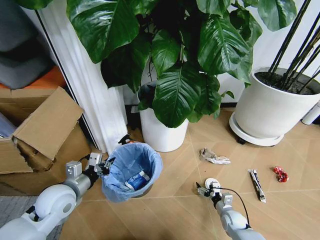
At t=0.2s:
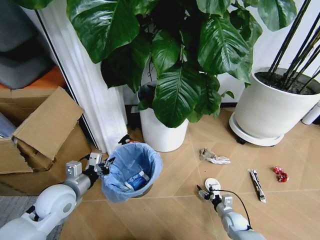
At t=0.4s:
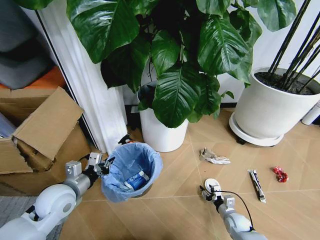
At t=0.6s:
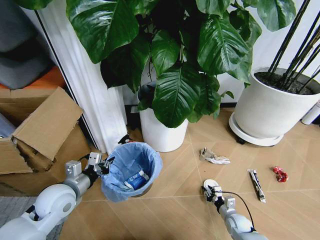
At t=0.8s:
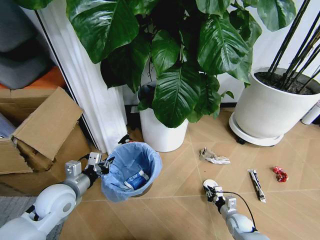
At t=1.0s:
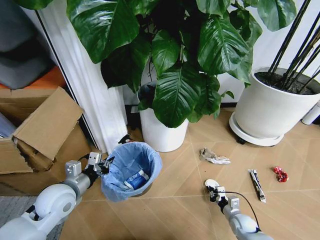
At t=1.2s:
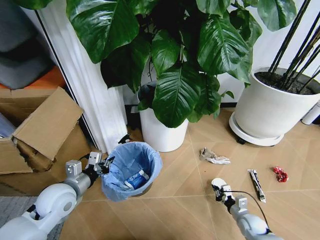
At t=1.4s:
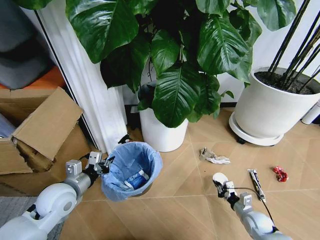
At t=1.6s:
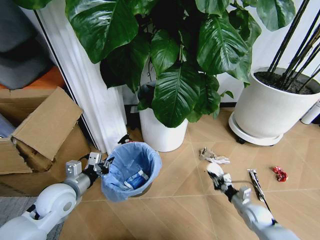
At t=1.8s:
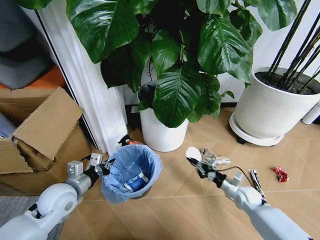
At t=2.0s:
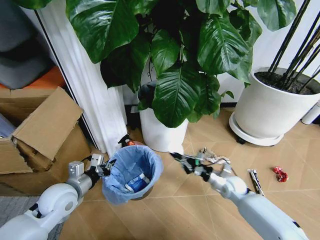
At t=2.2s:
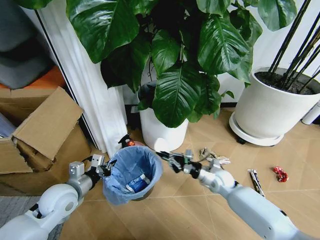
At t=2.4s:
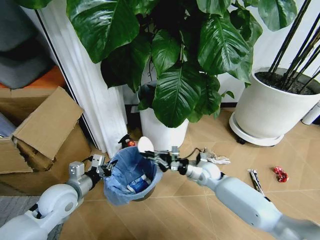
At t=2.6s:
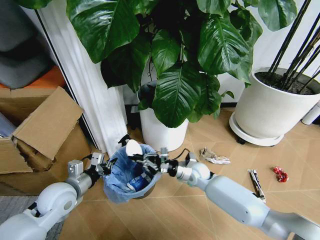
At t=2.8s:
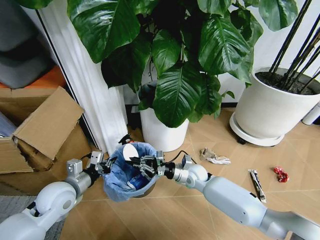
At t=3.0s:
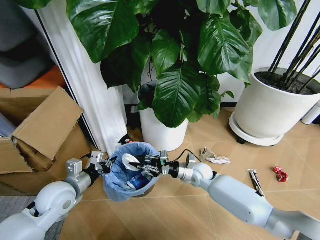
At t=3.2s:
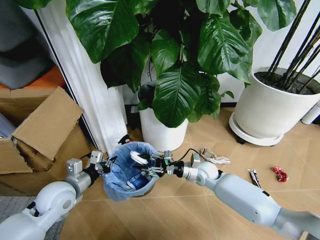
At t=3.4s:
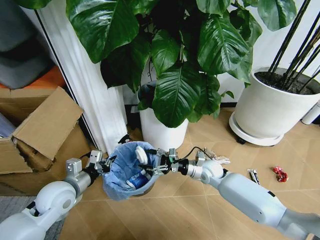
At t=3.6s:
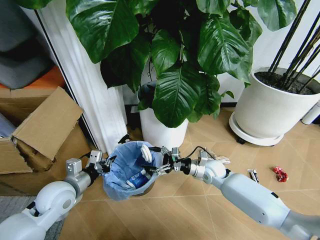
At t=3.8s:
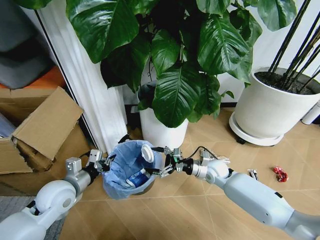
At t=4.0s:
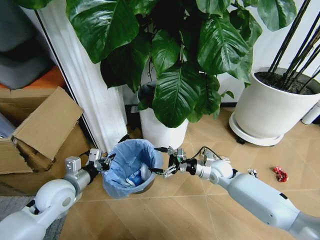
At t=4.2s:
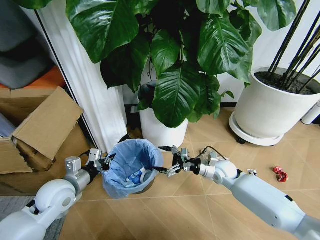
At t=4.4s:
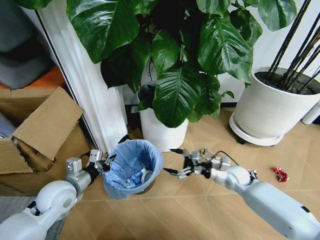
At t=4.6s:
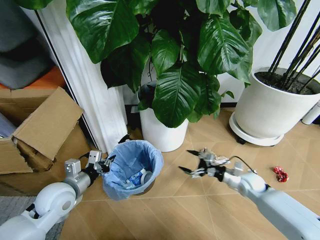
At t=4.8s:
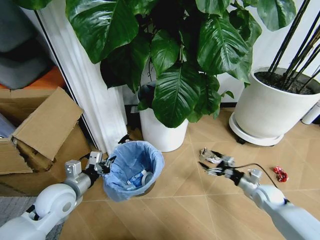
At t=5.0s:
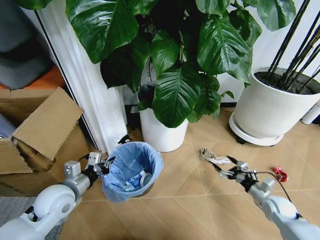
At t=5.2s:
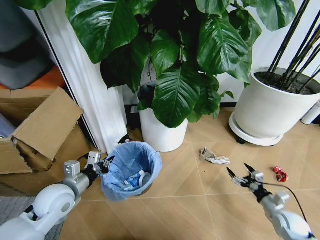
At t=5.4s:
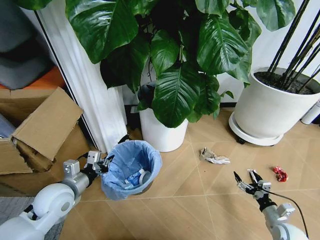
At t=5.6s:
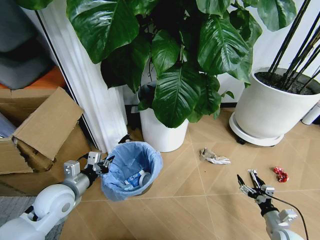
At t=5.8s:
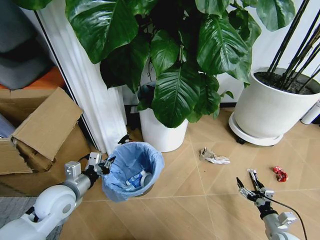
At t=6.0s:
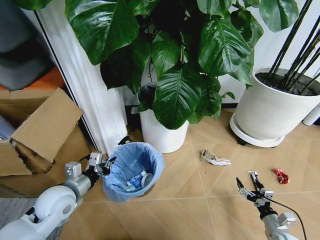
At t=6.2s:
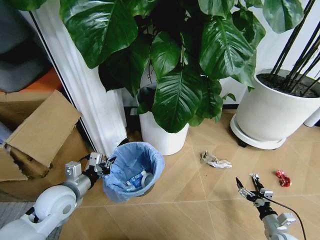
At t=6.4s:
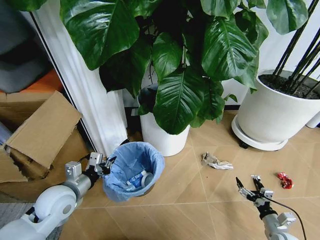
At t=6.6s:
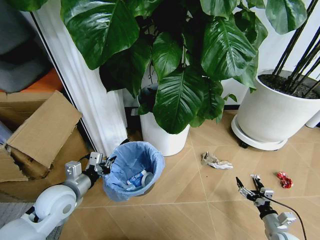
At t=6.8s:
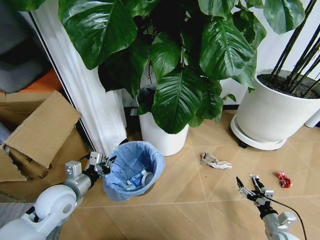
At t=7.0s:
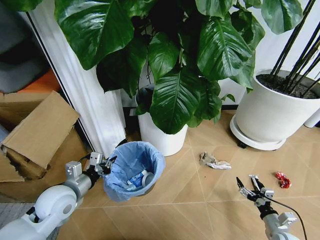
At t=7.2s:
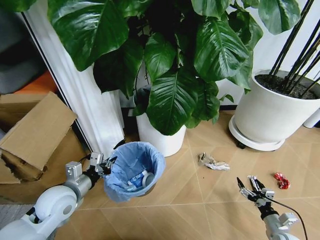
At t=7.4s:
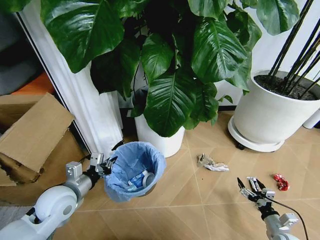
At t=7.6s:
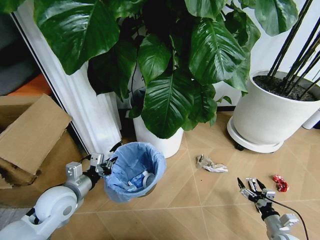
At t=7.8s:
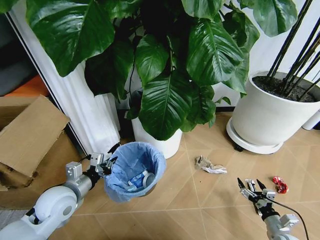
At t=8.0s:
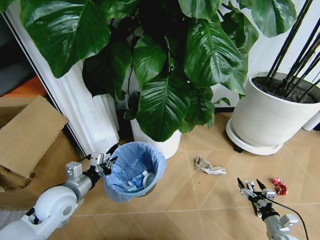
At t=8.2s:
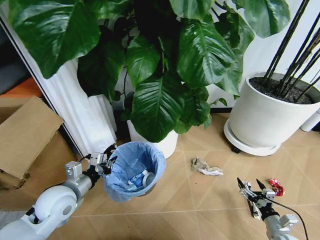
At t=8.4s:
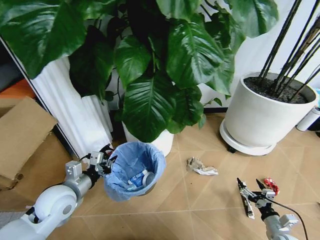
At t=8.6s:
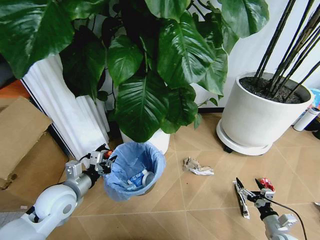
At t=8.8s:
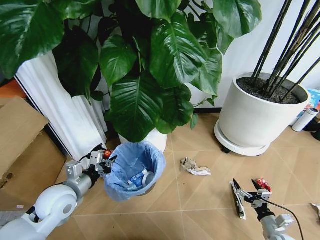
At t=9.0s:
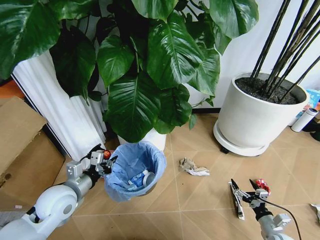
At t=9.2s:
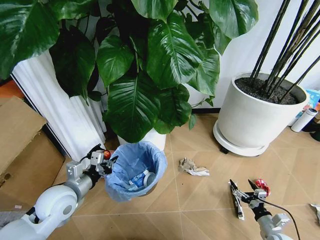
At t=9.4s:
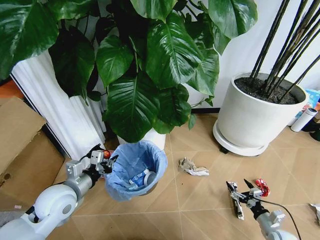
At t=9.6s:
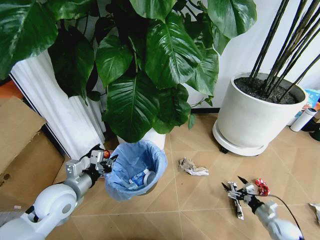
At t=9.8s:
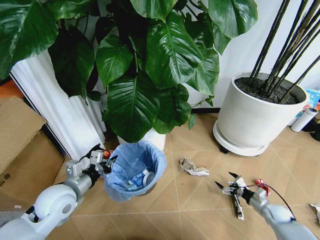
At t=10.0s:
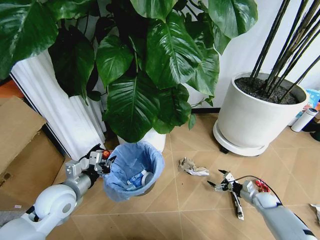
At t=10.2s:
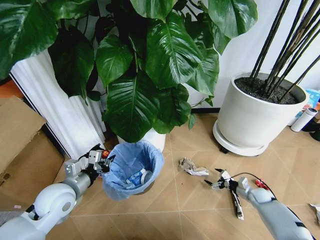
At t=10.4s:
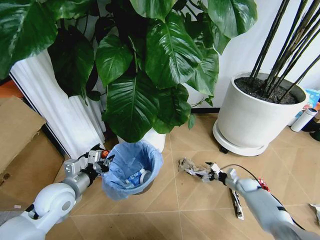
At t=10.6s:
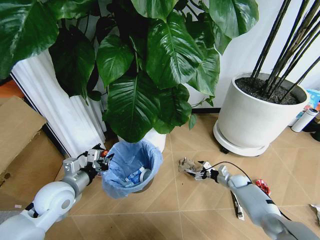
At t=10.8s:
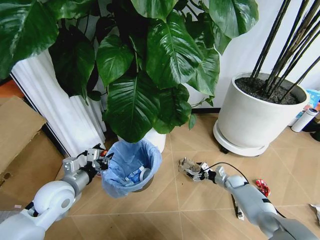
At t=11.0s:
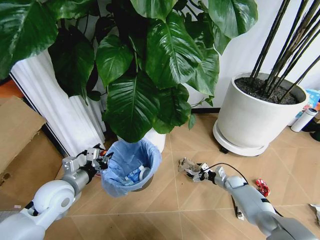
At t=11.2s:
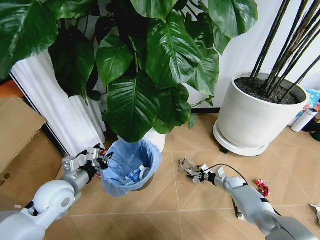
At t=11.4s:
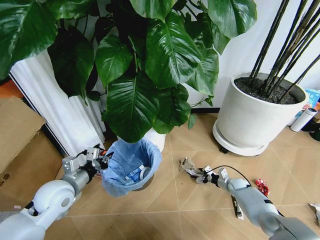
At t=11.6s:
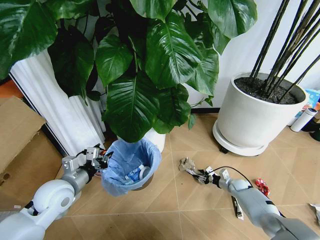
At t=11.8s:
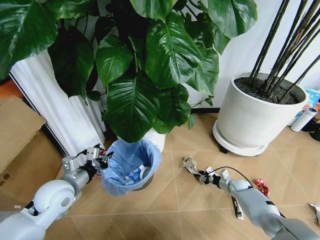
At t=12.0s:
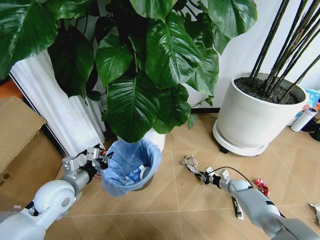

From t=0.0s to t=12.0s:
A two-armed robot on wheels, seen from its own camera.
Task of the whole recording: Pick up the trash bin and place the garbage on the floor into it.
From t=0.0s to t=1.6s: The right gripper travels upward and to the right by approximately 10 cm, and closes up.
From t=1.6s to t=3.0s: The right gripper travels to the left, forward and upward by roughly 25 cm.
From t=3.0s to t=4.4s: The right gripper goes some 15 cm to the right, and opens.
From t=4.4s to t=6.0s: The right gripper is displaced backward, to the right and downward by about 30 cm.
From t=9.0s to t=10.4s: The right gripper shifts approximately 25 cm forward.
From t=10.4s to t=12.0s: The right gripper closes its fingers.

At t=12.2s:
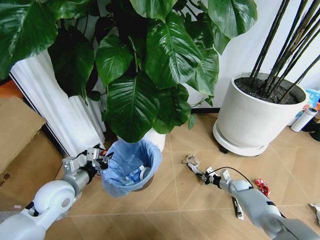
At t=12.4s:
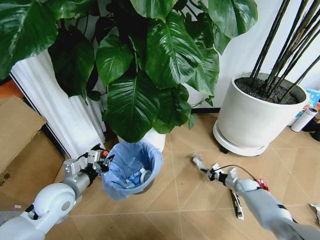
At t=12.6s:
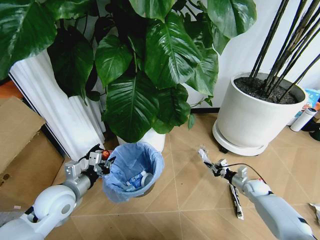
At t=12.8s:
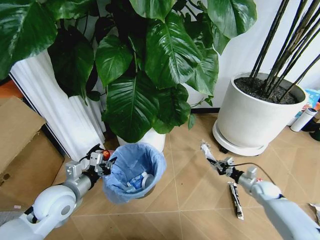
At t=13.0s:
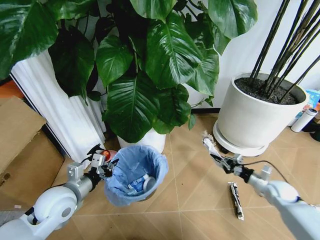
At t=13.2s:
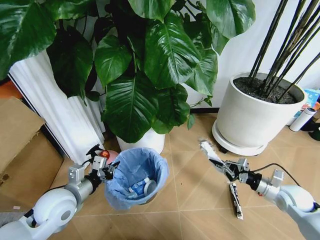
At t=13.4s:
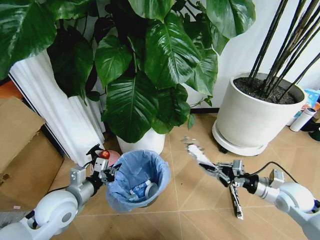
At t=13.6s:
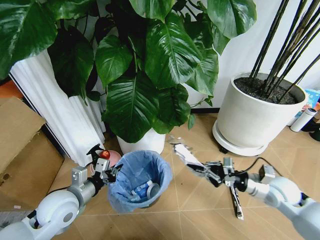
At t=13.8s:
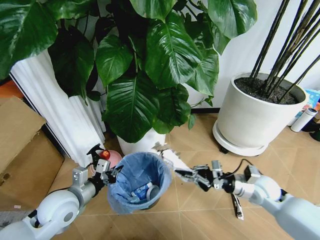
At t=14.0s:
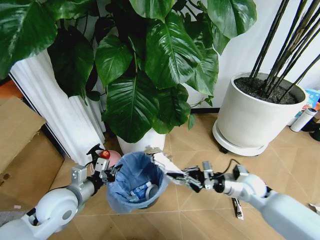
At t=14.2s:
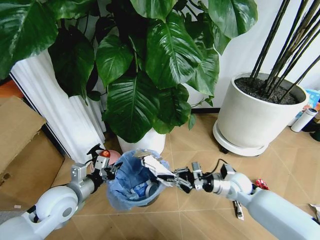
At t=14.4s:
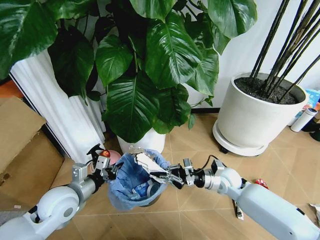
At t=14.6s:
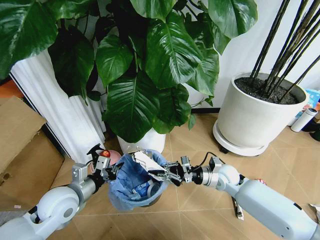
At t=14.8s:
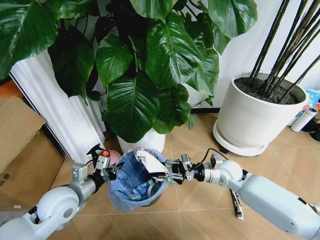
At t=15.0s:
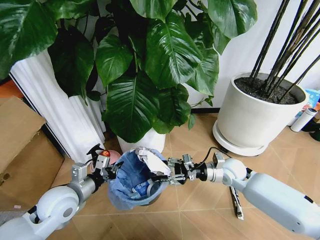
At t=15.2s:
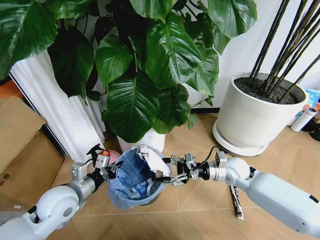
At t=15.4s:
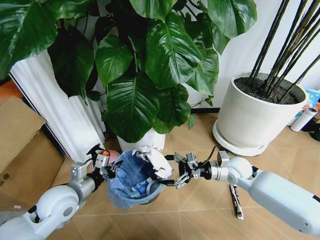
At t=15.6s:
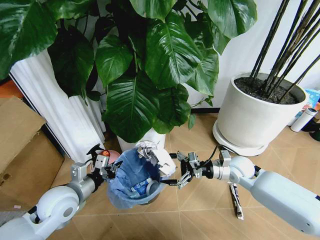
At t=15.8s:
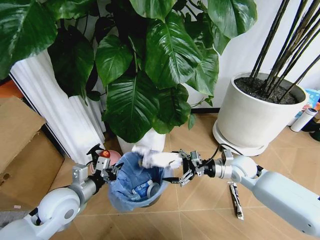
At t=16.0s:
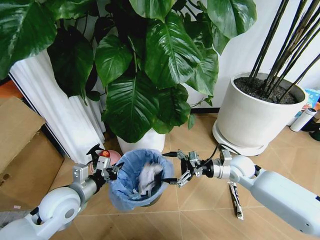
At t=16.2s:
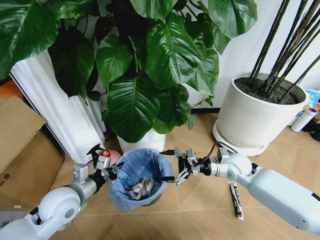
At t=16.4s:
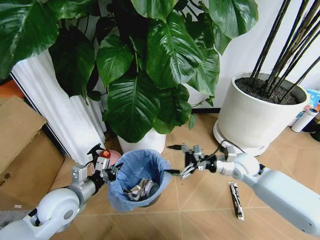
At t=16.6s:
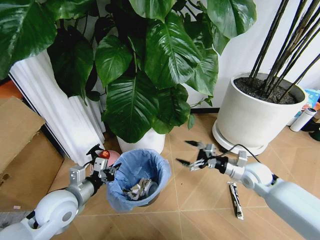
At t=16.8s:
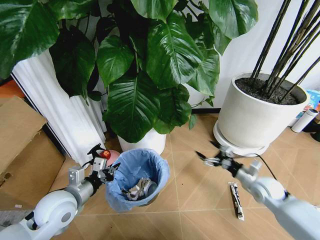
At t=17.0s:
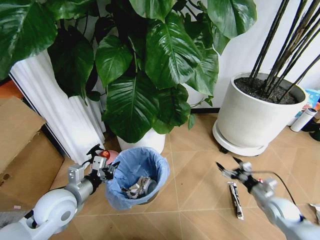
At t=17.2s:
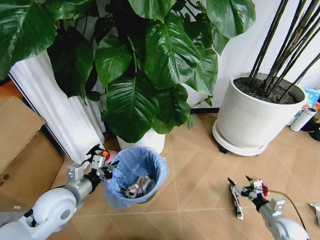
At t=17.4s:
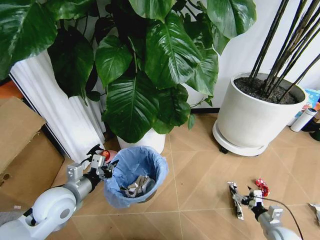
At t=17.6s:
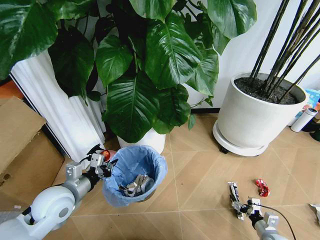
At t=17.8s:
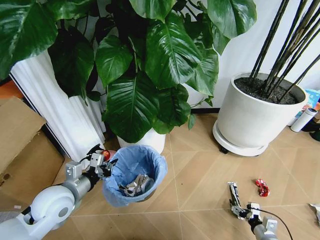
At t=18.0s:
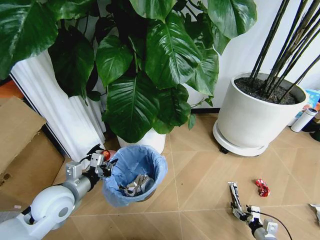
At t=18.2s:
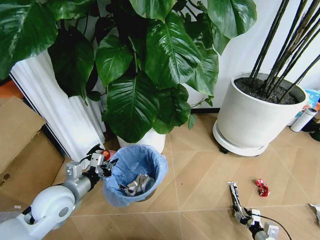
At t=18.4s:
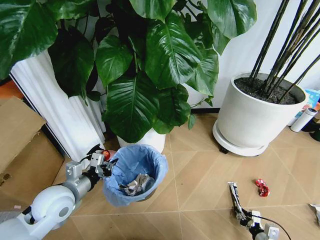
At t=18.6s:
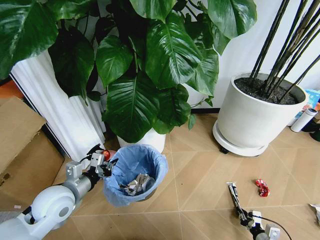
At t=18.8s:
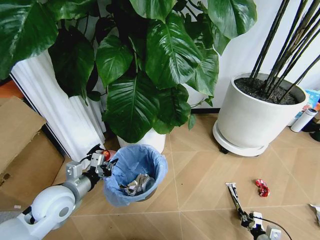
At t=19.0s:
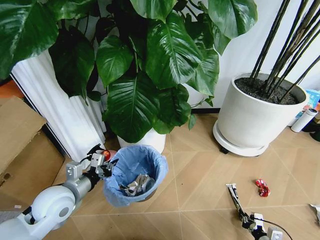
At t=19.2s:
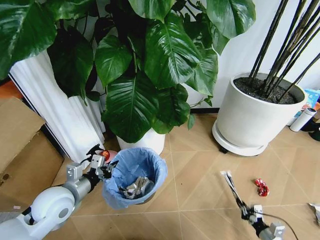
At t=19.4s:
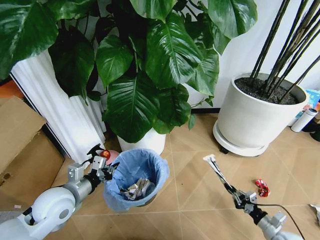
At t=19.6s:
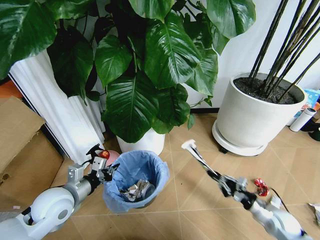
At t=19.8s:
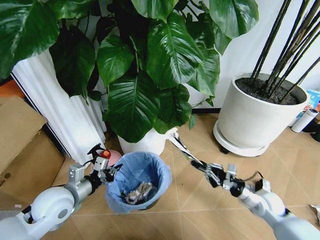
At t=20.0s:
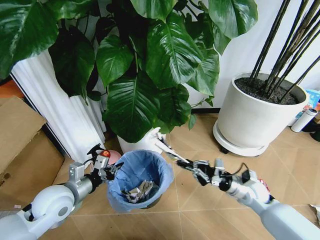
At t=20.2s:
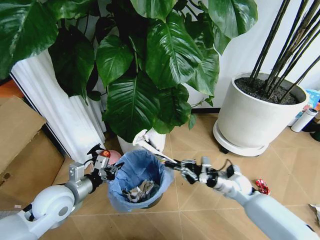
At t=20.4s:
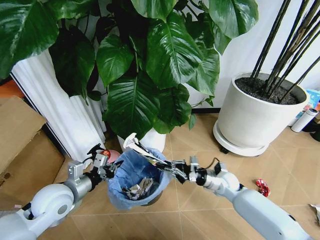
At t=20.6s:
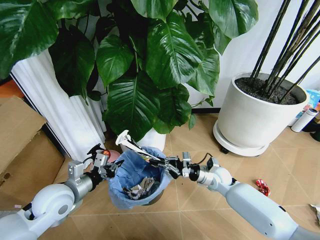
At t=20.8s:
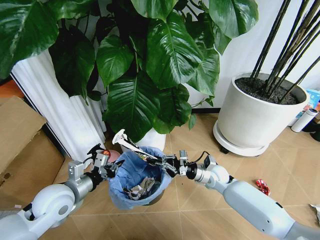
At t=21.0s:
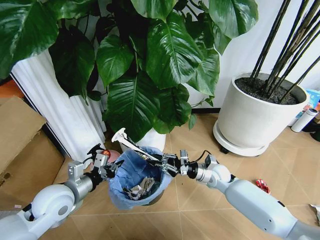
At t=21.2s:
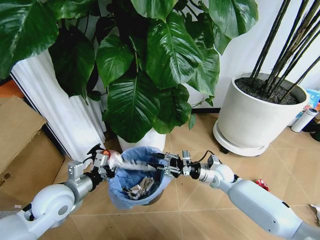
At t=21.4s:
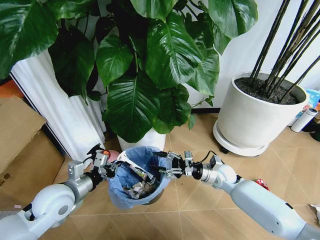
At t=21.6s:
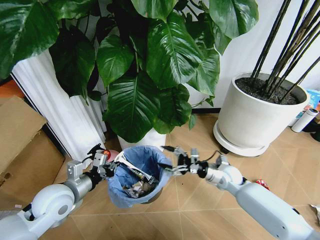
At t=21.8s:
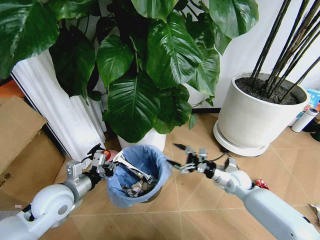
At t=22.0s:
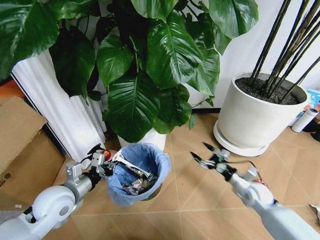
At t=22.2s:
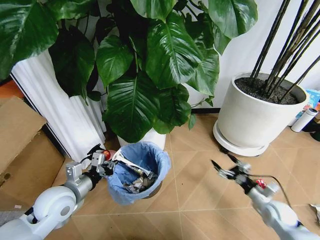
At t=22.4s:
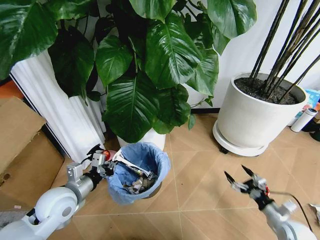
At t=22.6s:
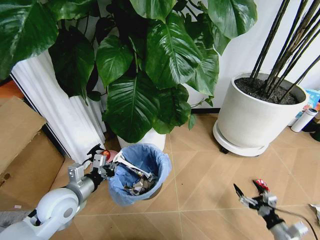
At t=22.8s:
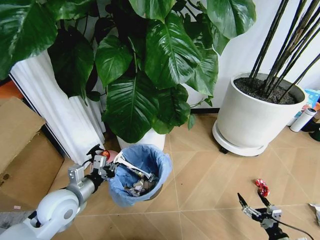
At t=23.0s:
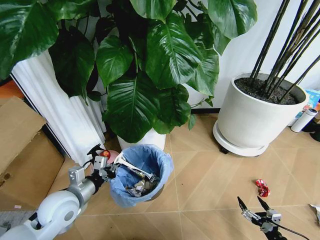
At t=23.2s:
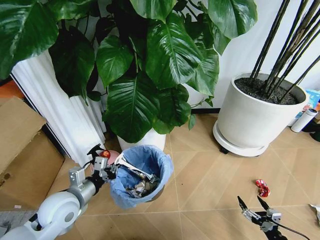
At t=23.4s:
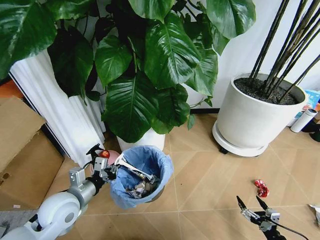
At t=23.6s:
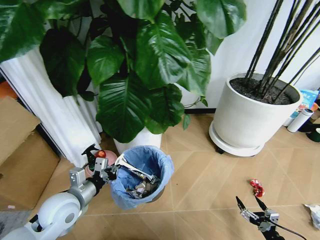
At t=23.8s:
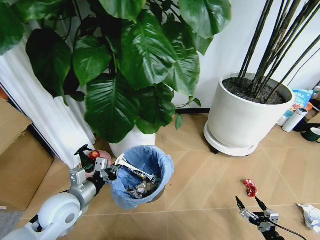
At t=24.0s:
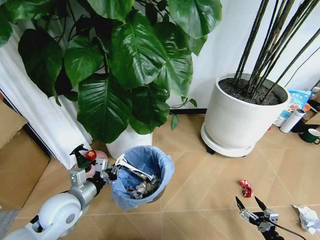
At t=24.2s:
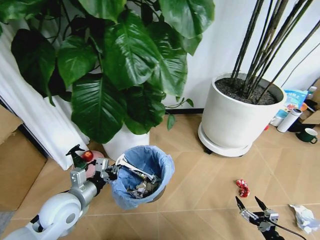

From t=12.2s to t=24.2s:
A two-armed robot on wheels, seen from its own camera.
Task of the whole recording: Pick up the trash bin and place the garbage on the floor into it.
From t=12.2s to t=13.8s: The right gripper is displaced upward and backward by approximately 25 cm.
From t=13.8s to t=15.2s: The right gripper travels forward and to the left by roughly 10 cm, and opens up.
From t=15.2s to t=16.6s: The right gripper goes about 5 cm to the right.
From t=16.6s to t=18.2s: The right gripper goes approximately 30 cm downward and backward, and closes its fingers.
From t=18.2s to t=19.8s: The right gripper goes roughly 20 cm upward and forward, and closes its fingers.
From t=19.8s to t=21.2s: The right gripper moves to the left and forward, approximately 15 cm.
From t=21.2s to t=22.6s: The right gripper travels backward and to the right by some 30 cm, and opens its fingers.
From t=22.6s to t=24.2s: The right gripper shifts roughly 5 cm backward.
